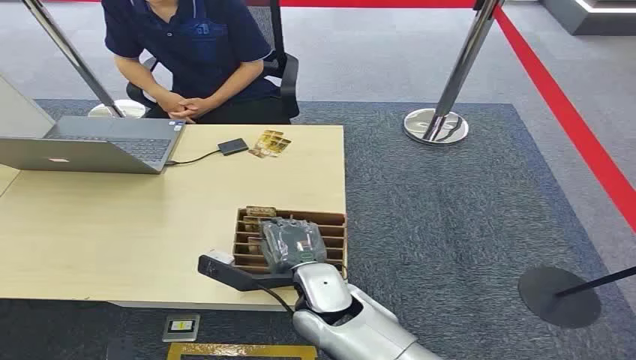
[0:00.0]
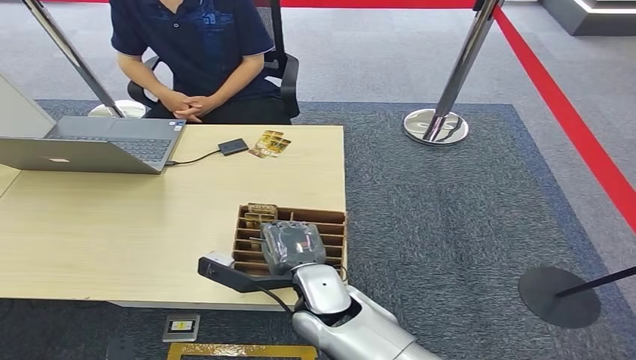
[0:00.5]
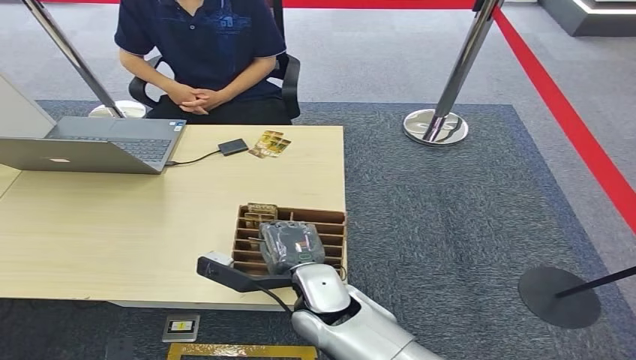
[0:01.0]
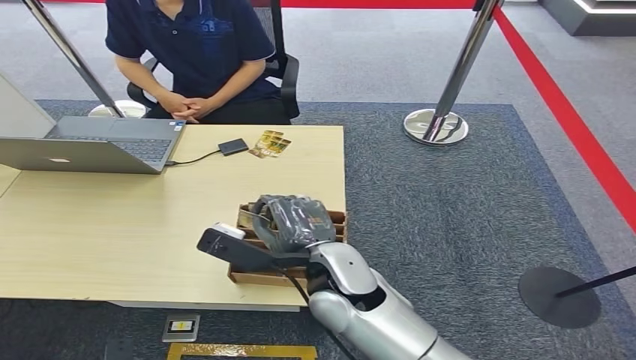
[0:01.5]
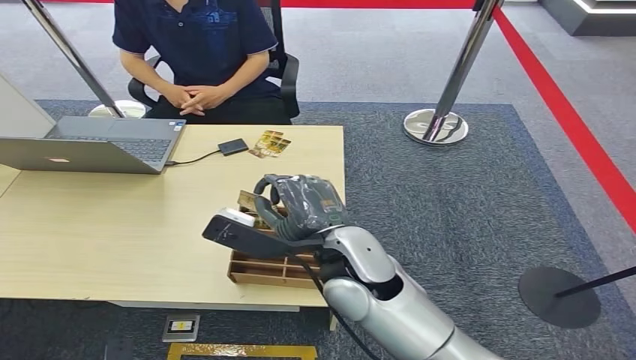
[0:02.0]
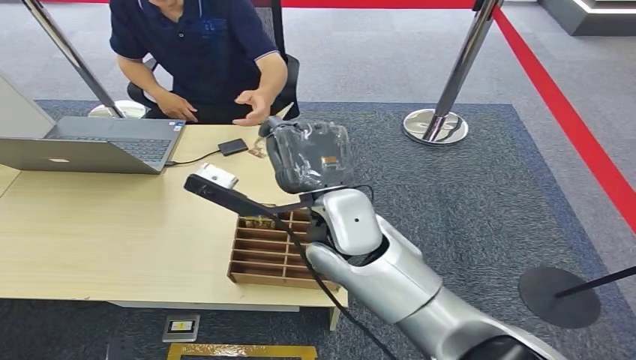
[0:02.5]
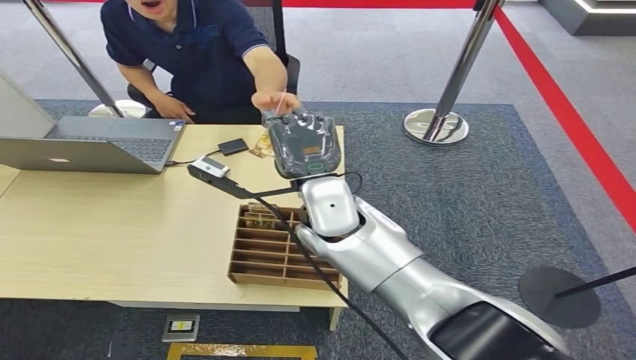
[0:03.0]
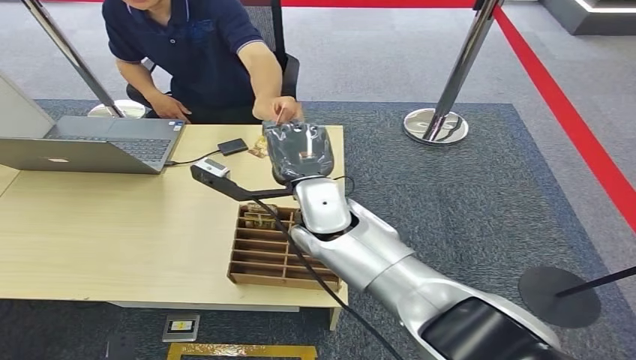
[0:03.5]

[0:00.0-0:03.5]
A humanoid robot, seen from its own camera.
Step, 0:00.0 to 0:02.0: Pick up the key card from the card box.
Step, 0:03.0 to 0:03.5: Hand the key card to the target.
0:02.0 to 0:03.5: The right hand moves forward, approximately 10 cm.
